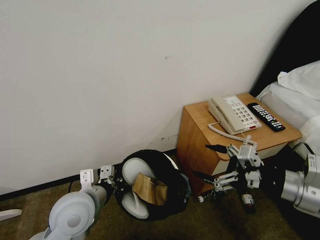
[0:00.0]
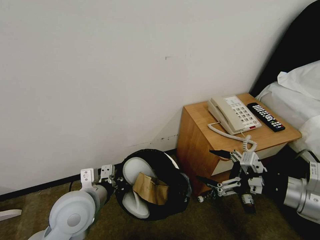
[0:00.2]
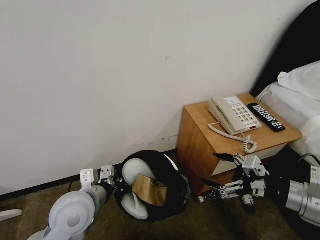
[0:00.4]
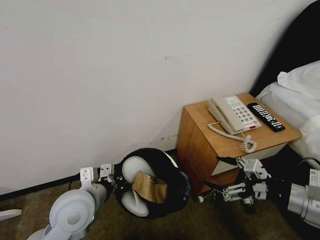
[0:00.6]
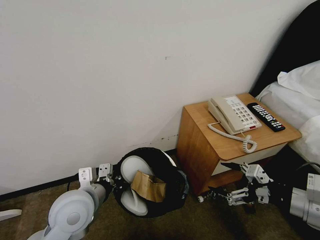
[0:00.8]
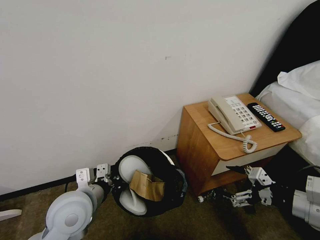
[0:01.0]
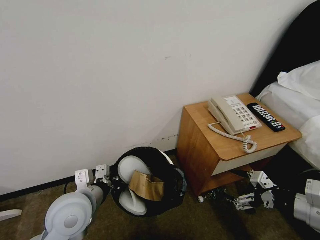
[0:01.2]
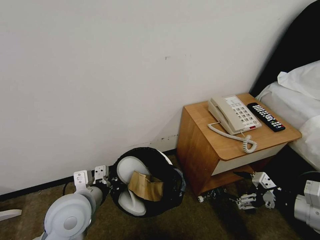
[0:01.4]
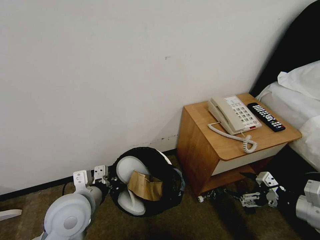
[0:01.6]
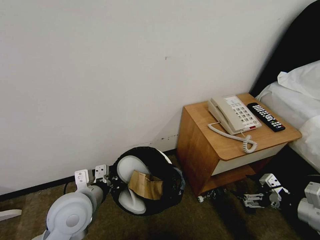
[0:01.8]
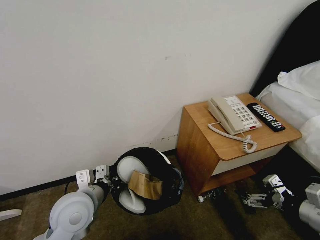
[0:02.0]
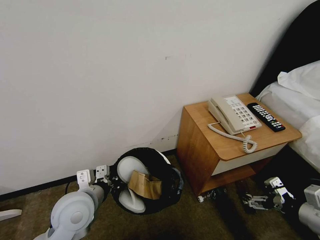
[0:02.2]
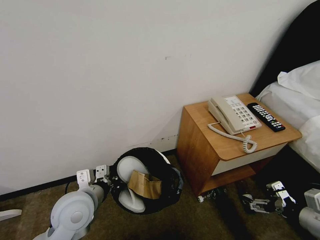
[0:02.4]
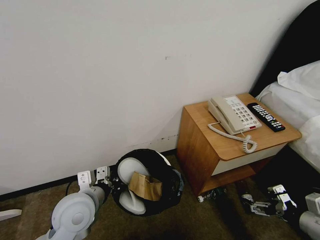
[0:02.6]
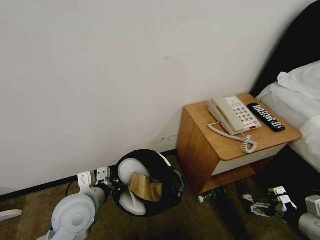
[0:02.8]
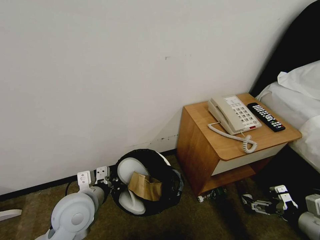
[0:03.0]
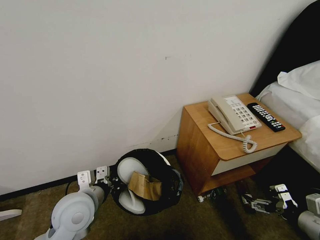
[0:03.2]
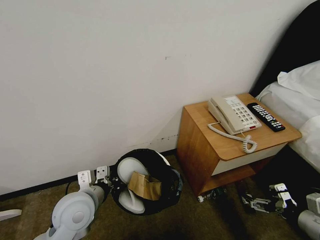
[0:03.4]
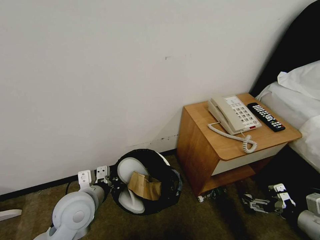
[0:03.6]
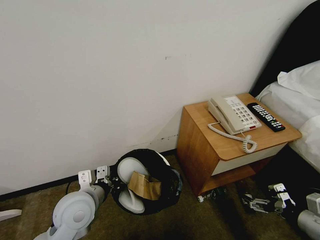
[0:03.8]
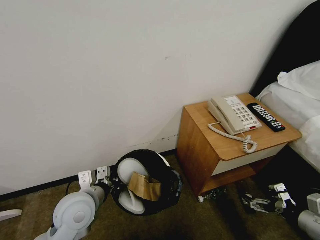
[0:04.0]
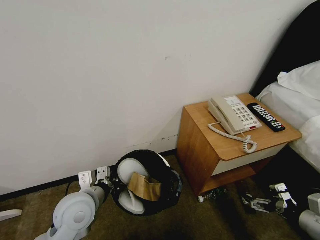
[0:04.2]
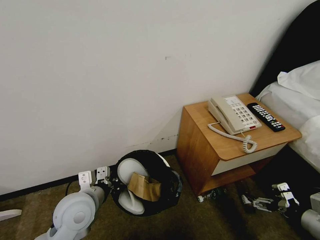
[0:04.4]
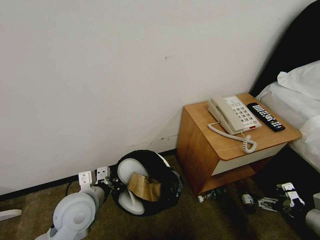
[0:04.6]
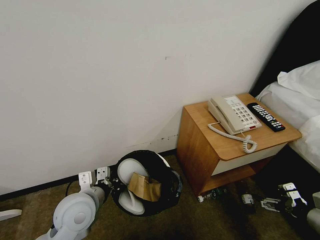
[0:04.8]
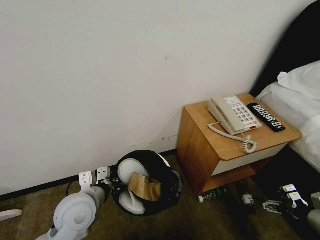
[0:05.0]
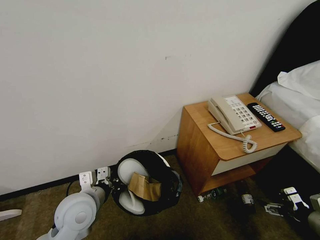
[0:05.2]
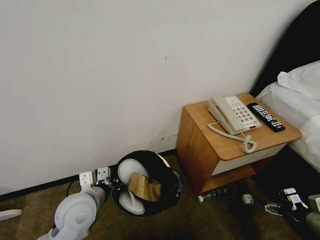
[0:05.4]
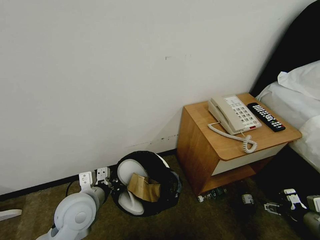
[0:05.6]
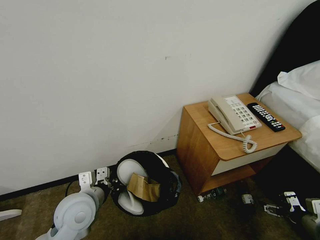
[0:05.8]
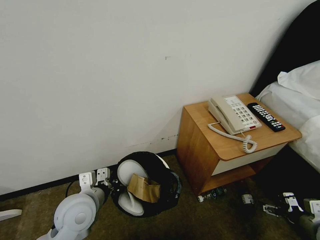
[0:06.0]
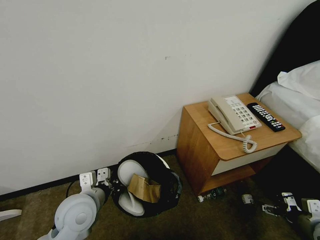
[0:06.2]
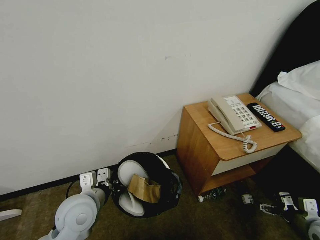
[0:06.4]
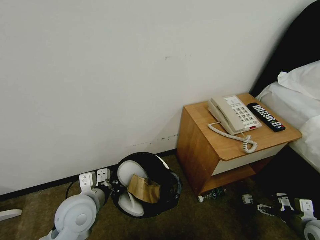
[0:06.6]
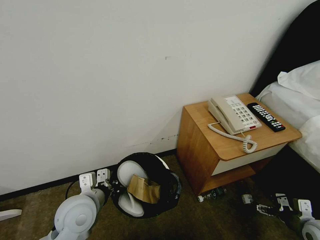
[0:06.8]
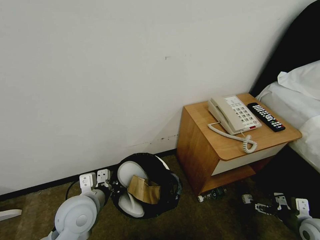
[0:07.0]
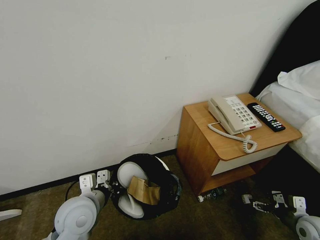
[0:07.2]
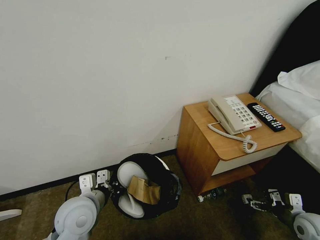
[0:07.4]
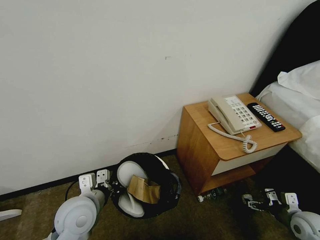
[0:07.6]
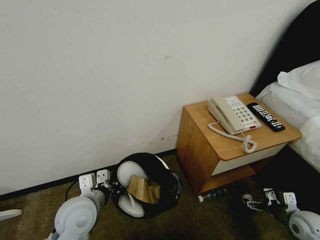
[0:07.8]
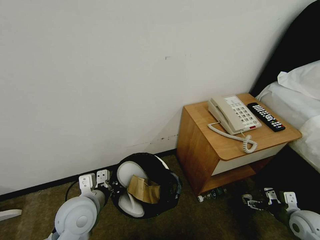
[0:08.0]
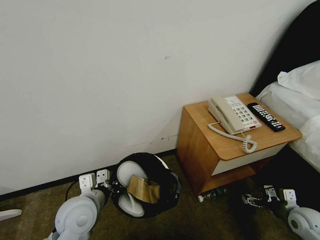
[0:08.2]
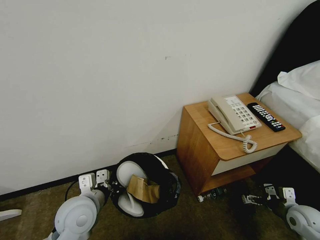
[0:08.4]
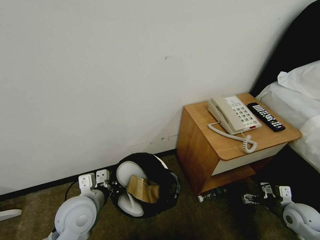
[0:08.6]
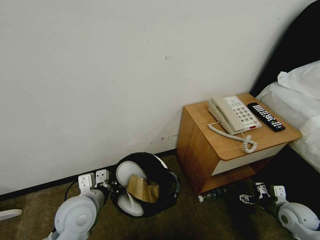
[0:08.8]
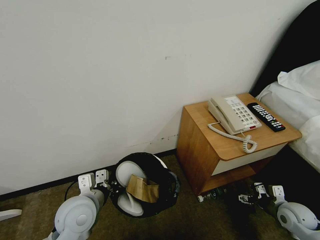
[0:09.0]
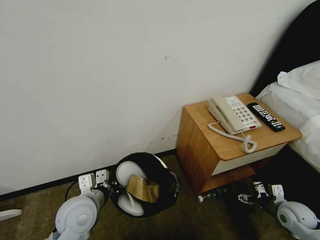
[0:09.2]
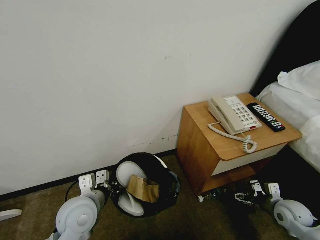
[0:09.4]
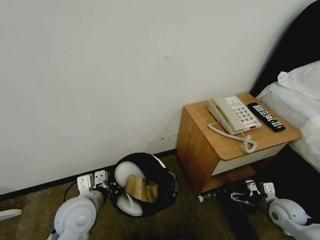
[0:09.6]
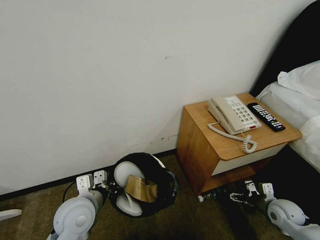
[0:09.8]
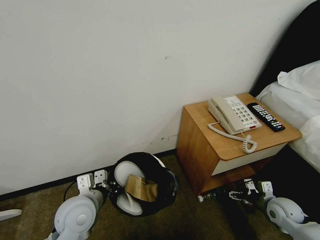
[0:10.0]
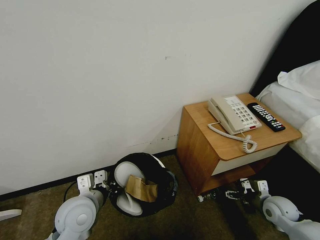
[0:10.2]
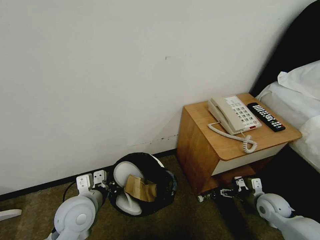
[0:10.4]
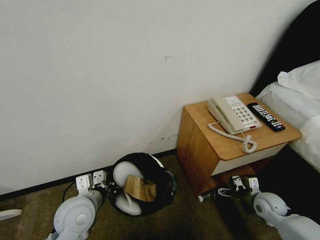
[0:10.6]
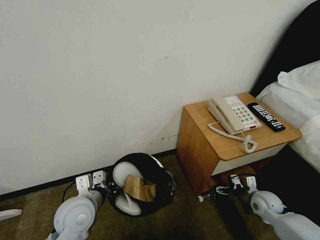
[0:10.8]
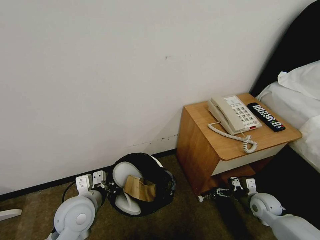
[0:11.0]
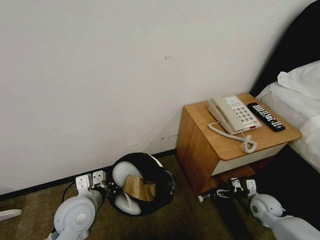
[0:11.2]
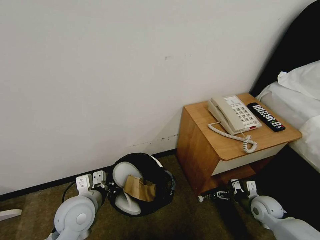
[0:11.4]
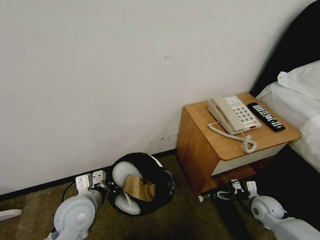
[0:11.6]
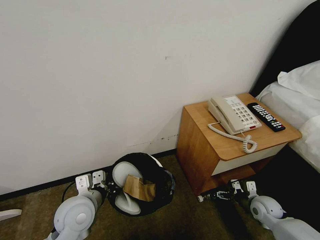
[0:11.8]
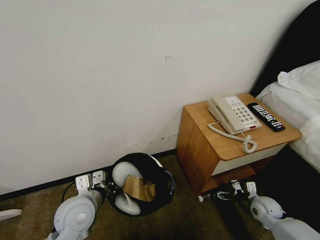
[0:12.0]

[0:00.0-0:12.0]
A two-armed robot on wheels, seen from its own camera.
Task of the whole recording: Pick up the trash bin, then pick up the garbage from the floor and place it into the trash bin.
0:00.0 to 0:01.6: The right gripper is displaced downward and to the right by roughly 10 cm.
0:01.6 to 0:03.0: The right gripper changes place by roughly 5 cm.
0:03.0 to 0:04.4: The grippers make only small movements.
0:04.4 to 0:06.0: The right gripper travels downward by about 10 cm.
0:06.0 to 0:07.6: The right gripper changes place by about 5 cm.
0:07.6 to 0:09.0: There are only small adjustments of the grippers.
0:09.0 to 0:10.4: The right gripper changes place by approximately 5 cm.
0:10.4 to 0:12.0: There are only small adjustments of the grippers.

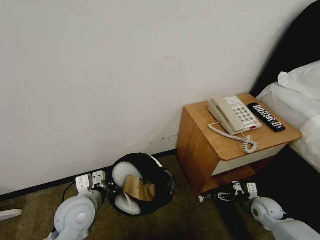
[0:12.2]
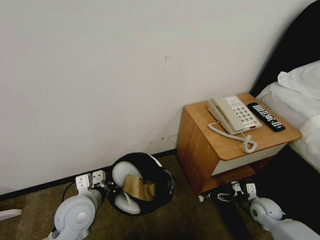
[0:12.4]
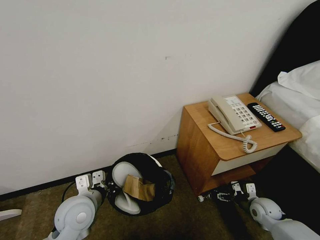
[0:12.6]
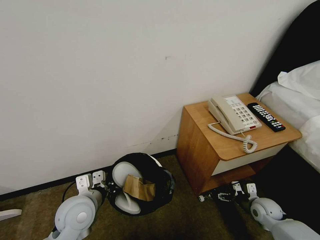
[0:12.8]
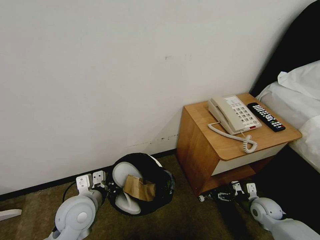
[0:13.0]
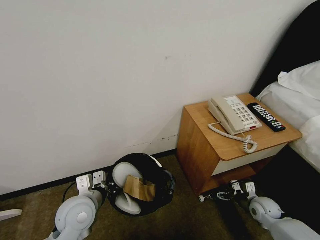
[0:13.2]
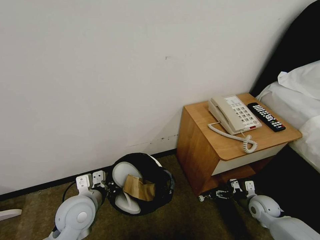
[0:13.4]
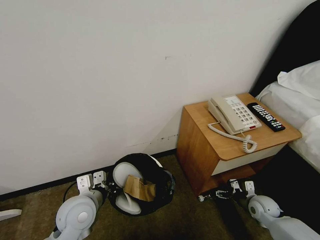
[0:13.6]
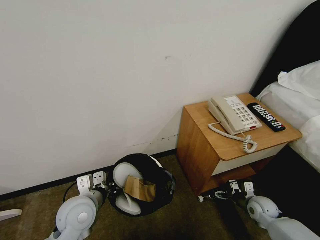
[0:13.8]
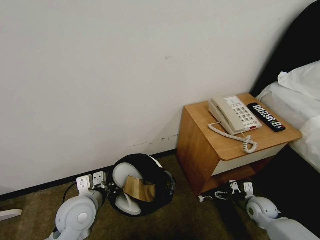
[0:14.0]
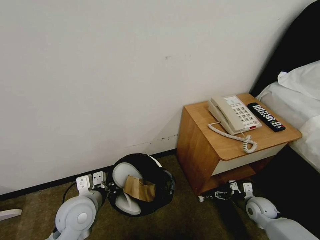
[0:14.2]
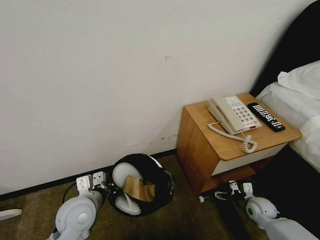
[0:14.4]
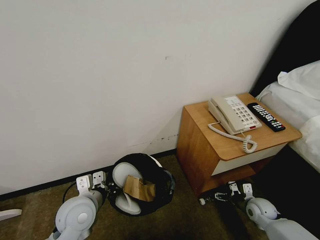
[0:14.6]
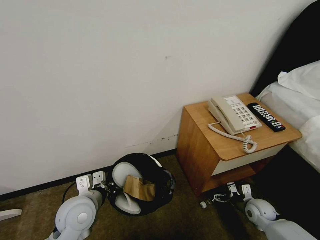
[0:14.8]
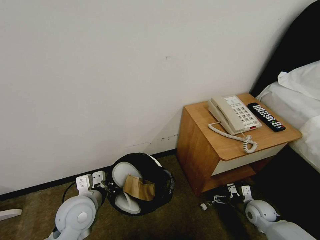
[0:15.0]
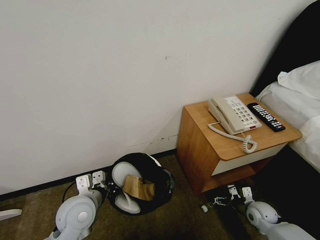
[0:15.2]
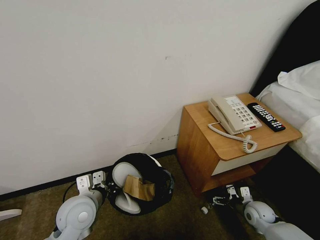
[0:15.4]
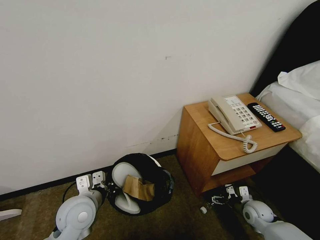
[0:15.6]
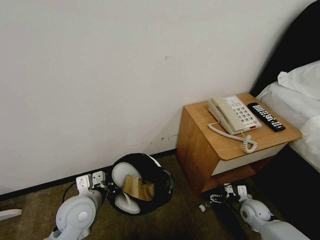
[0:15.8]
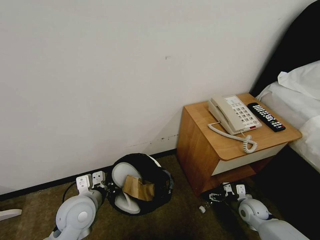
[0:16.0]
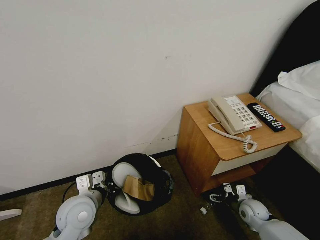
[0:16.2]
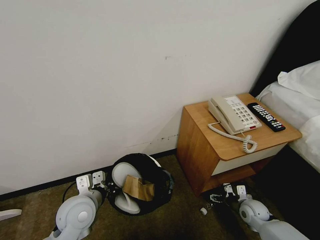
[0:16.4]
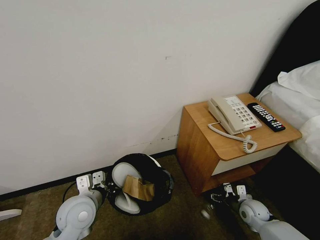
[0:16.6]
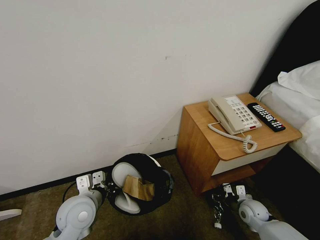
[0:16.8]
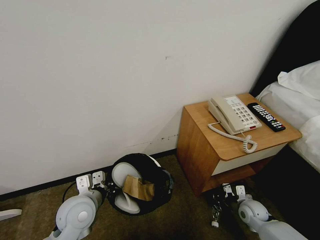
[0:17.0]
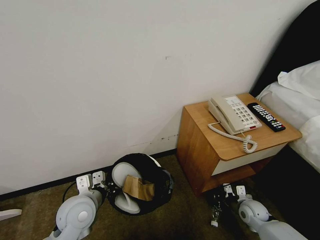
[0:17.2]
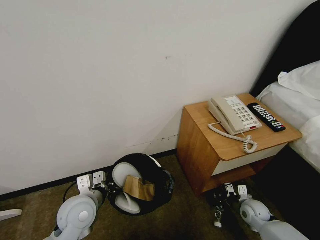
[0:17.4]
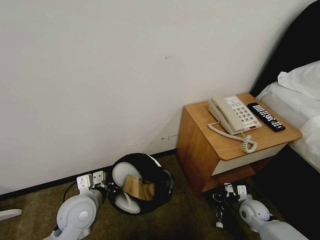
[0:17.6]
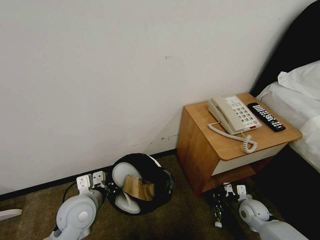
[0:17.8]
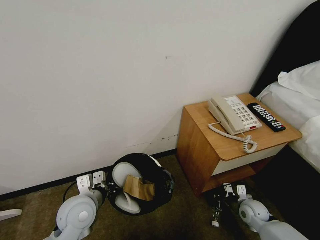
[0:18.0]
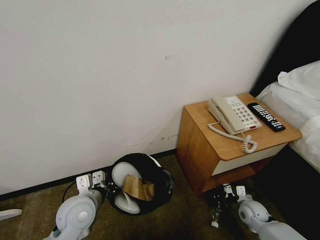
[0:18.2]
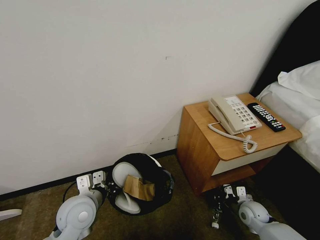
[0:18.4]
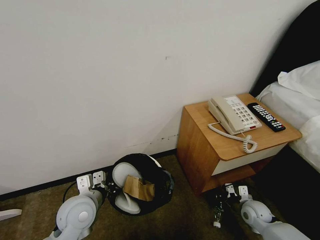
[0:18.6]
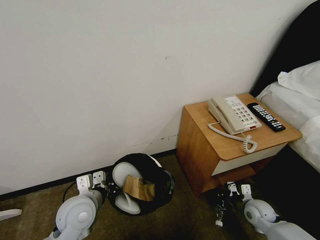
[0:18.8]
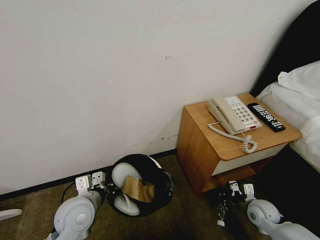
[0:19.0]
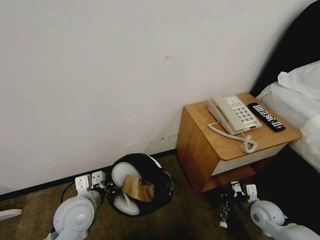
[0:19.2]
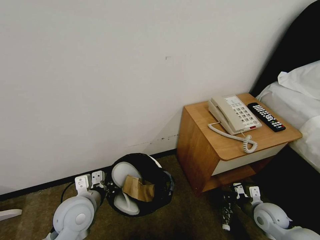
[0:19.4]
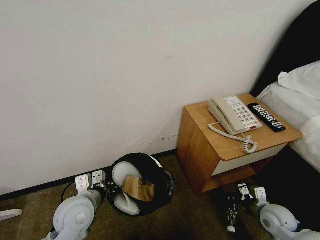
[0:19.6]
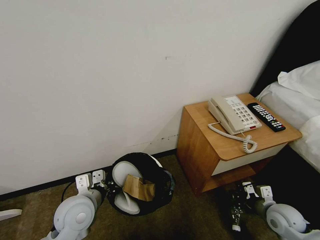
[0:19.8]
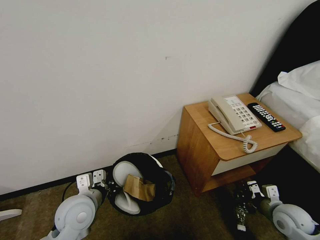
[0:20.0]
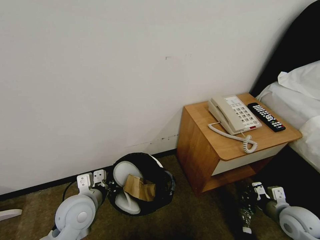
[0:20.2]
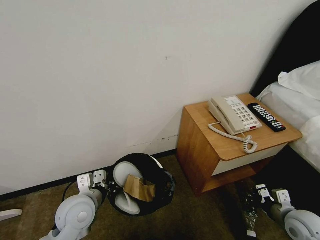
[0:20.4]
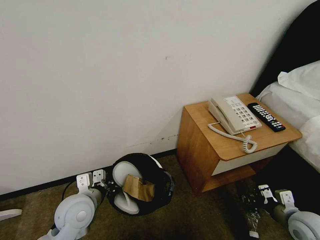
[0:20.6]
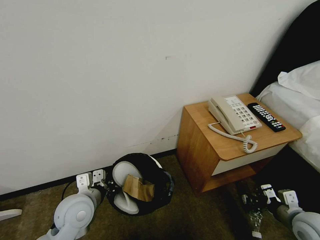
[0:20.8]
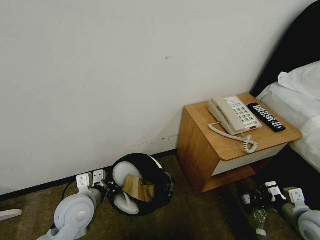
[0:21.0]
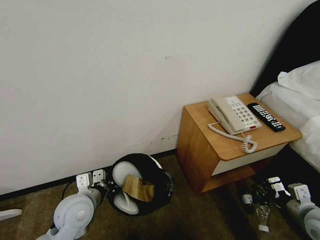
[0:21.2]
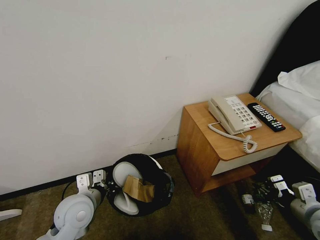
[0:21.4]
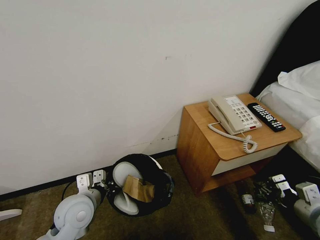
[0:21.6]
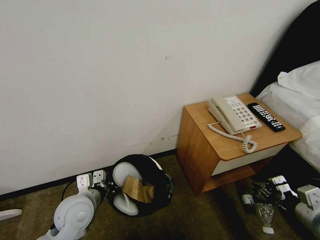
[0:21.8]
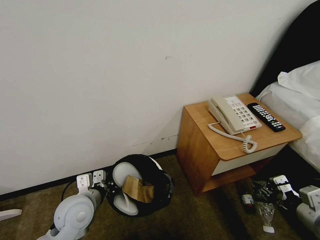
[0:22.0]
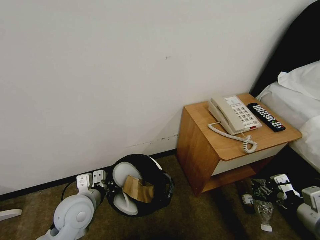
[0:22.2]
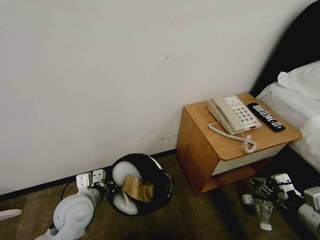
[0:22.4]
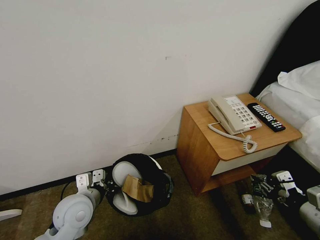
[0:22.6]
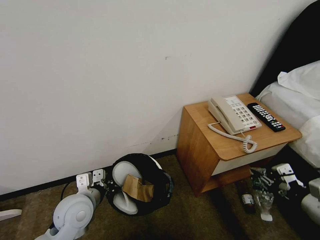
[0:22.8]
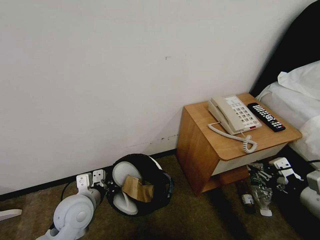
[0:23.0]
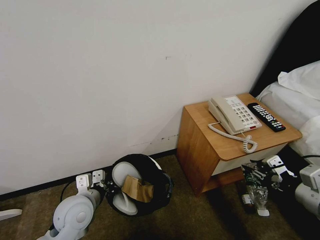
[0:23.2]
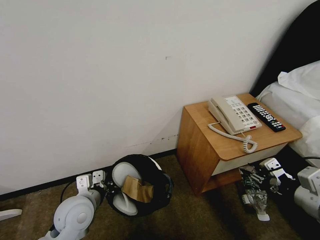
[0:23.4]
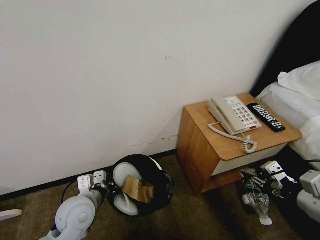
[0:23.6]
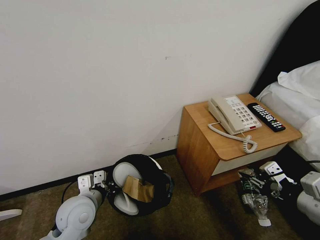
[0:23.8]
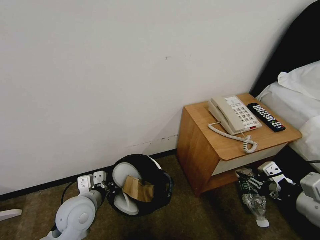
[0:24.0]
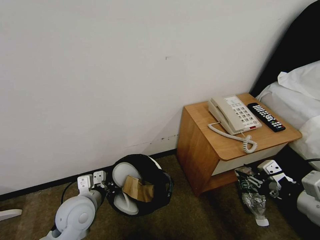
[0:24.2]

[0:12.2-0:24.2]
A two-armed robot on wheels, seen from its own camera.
Task of the whole recording: Pick up the trash bin, then pick up the garbage from the floor and place it into the trash bin.
0:12.2 to 0:13.8: Neither gripper changes place.
0:13.8 to 0:16.6: The grippers move only a little.
0:16.6 to 0:18.2: The right gripper closes up.
0:18.2 to 0:19.8: The right gripper is displaced upward by about 10 cm.
0:19.8 to 0:21.2: The right gripper travels upward by approximately 10 cm.
0:21.2 to 0:22.6: The right gripper heads upward, covering some 10 cm.
0:22.6 to 0:24.2: The right gripper goes roughly 10 cm upward.
